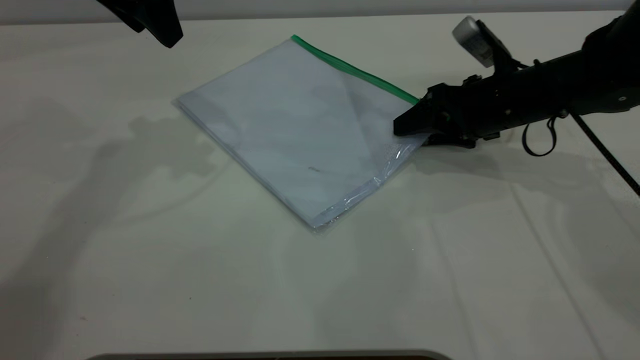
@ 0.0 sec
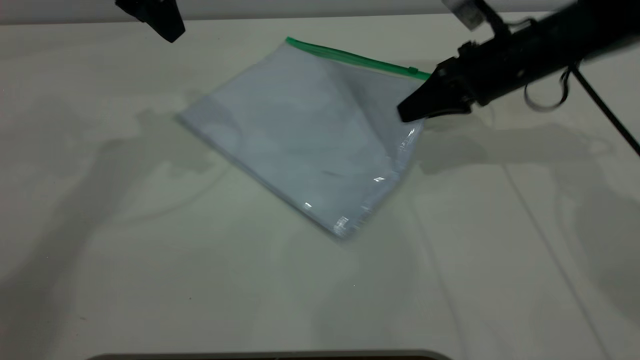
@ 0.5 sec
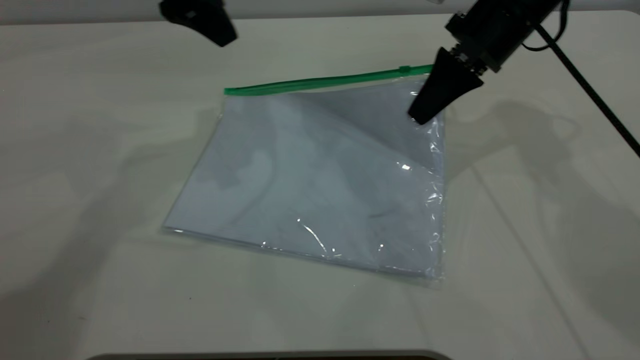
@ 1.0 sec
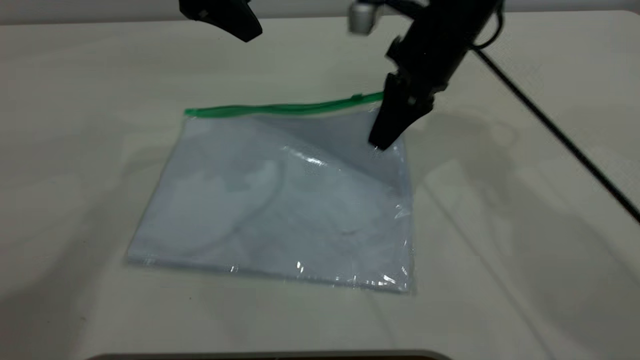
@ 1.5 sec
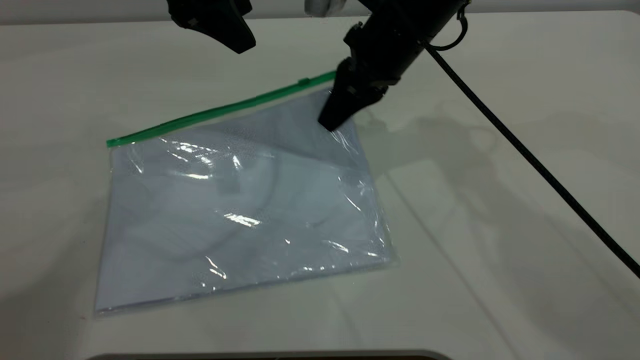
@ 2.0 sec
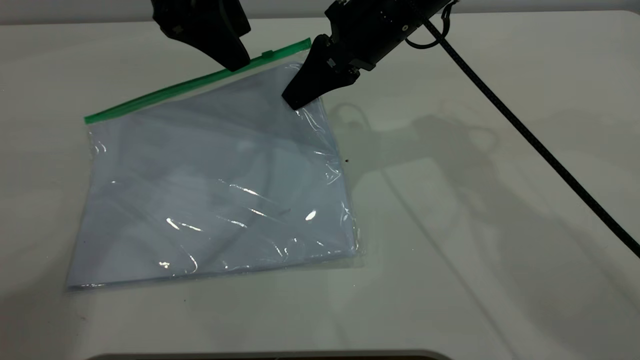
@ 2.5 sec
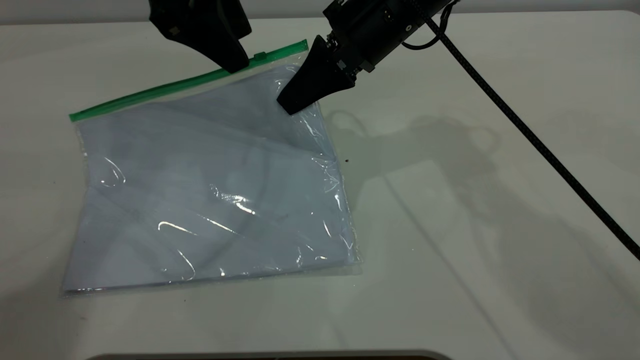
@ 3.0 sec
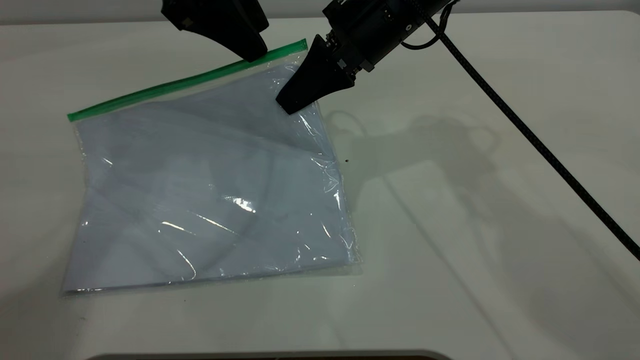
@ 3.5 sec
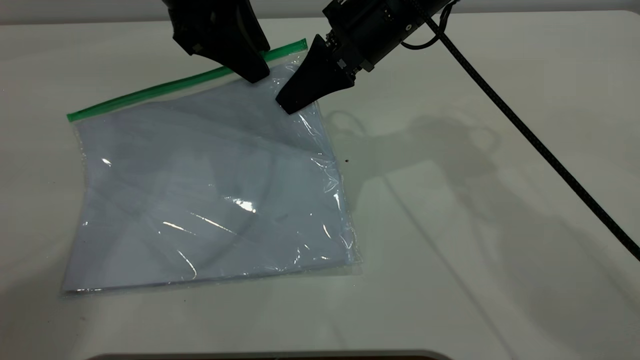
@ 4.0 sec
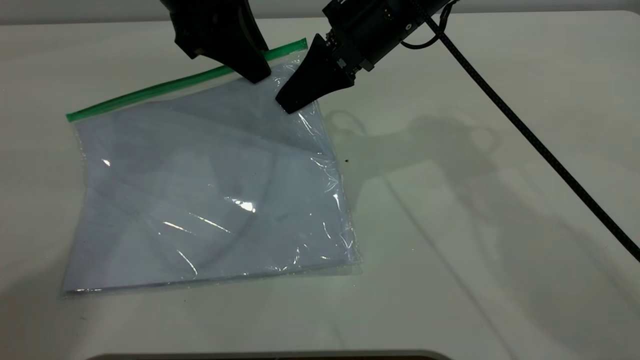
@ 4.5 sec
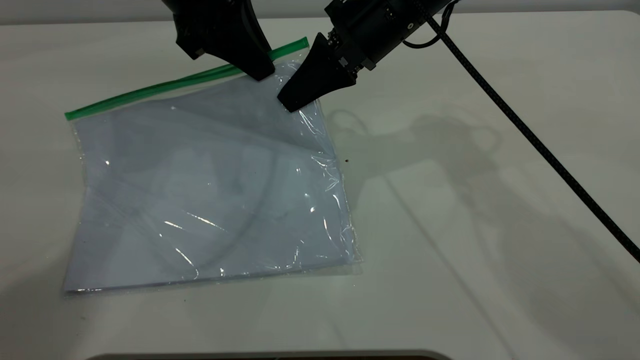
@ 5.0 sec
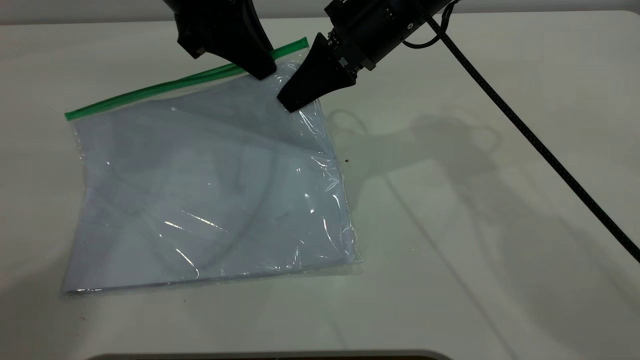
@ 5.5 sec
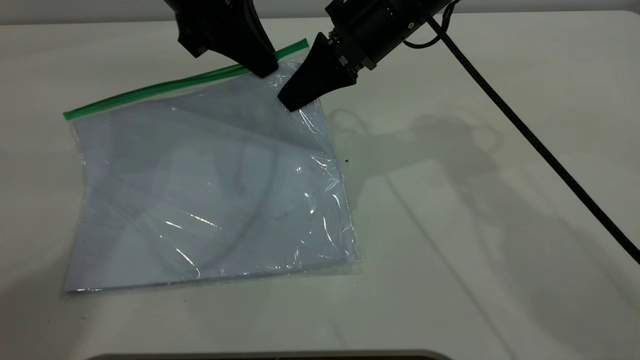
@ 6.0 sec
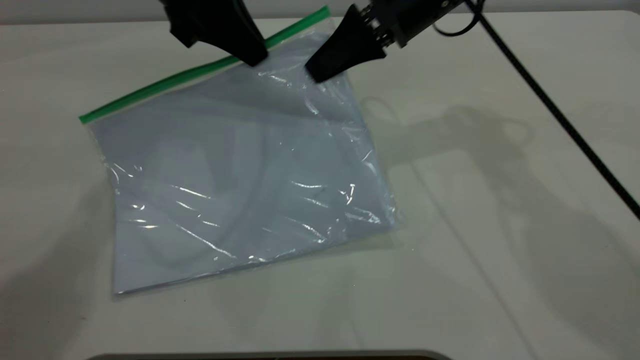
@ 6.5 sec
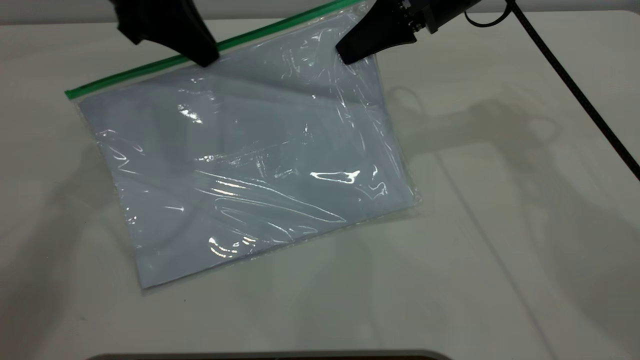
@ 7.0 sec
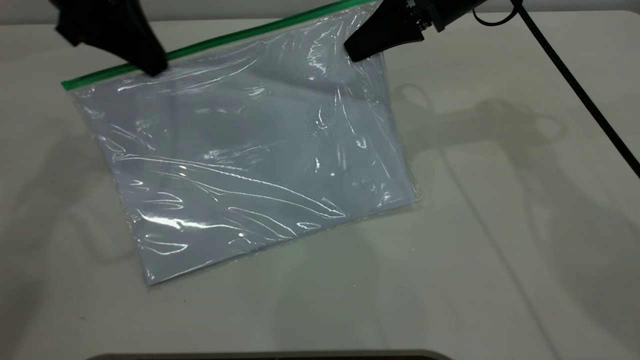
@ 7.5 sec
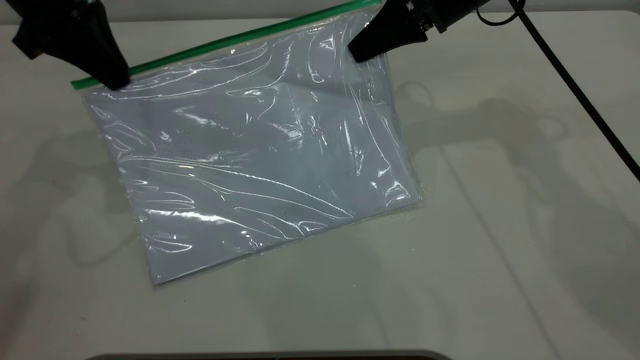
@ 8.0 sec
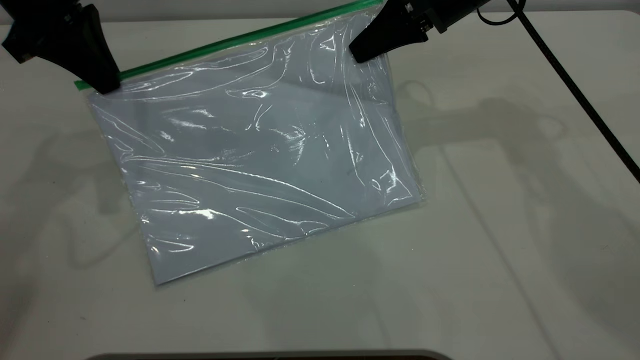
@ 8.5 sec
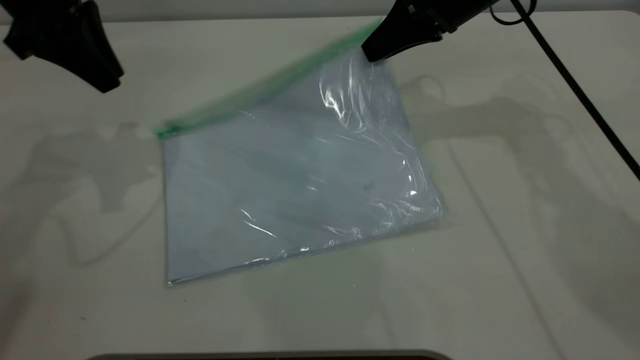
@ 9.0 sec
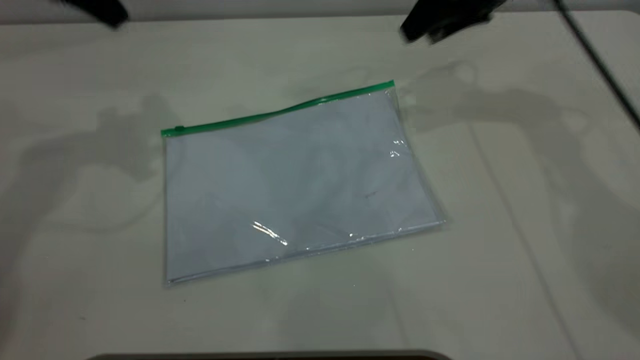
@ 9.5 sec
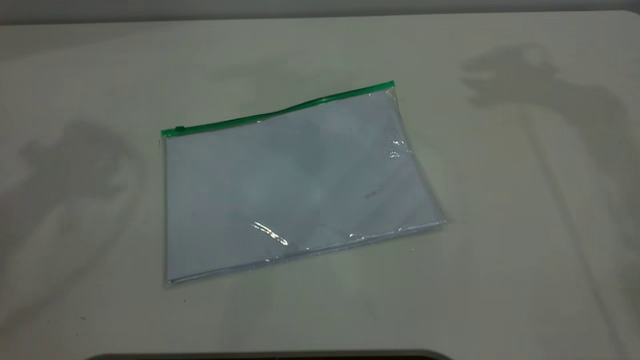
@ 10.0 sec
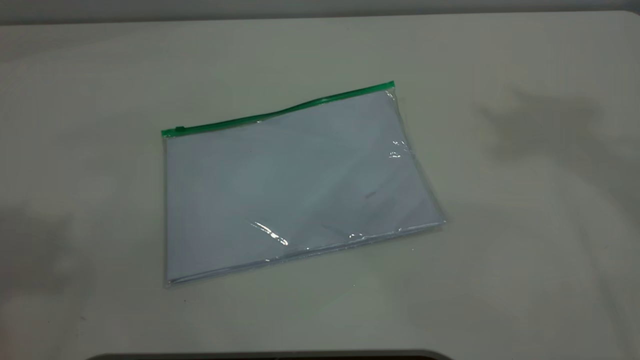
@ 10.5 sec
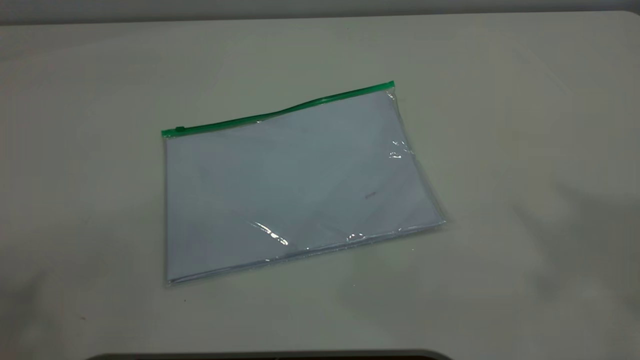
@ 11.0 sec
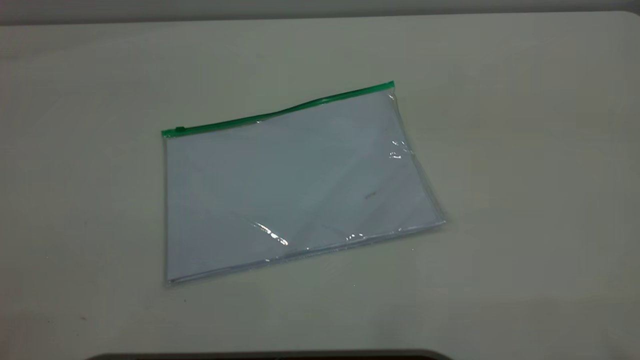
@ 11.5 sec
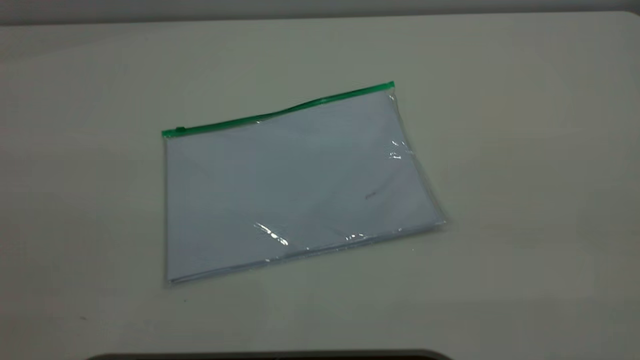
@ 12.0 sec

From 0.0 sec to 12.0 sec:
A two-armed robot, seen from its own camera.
Step, from 0.5 sec to 8.5 sec: Pulling up the zipper on the transparent plastic bag with the left gripper to close it.
From 0.0 sec to 2.0 sec: The left gripper travels to the right by some 5 cm, while the right gripper heads to the left and upward, covering about 15 cm, and closes.
From 2.0 sec to 4.0 sec: There are only small adjustments of the grippers.
From 4.0 sec to 6.0 sec: The left gripper closes up.
From 6.0 sec to 8.0 sec: The right gripper shifts approximately 10 cm to the right. Meanwhile the left gripper moves to the left, approximately 15 cm.
From 8.0 sec to 10.0 sec: The left gripper moves upward, some 25 cm, and opens its fingers, while the right gripper is displaced upward and to the right by about 30 cm, and opens up.

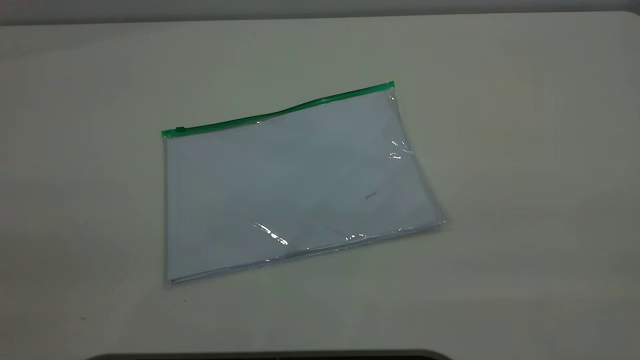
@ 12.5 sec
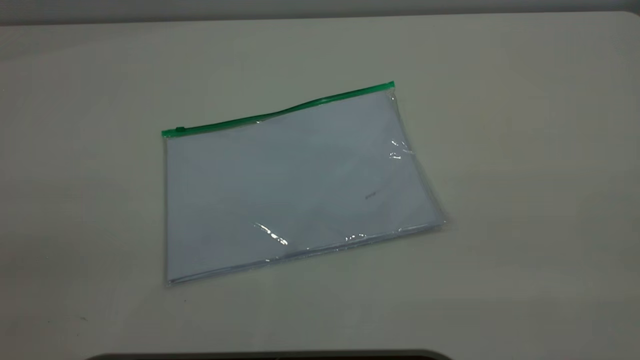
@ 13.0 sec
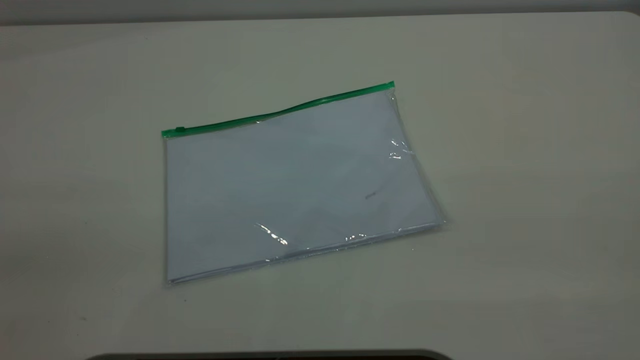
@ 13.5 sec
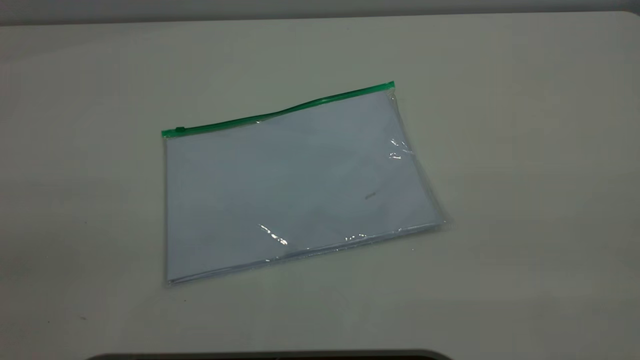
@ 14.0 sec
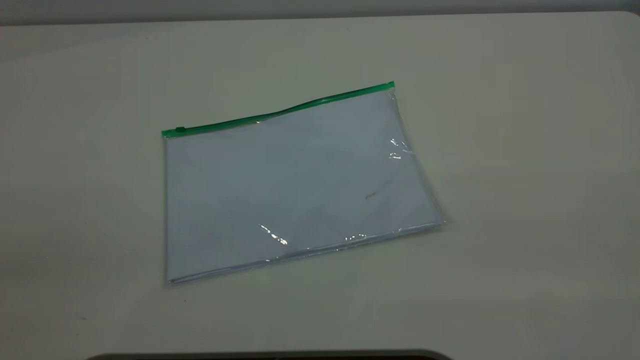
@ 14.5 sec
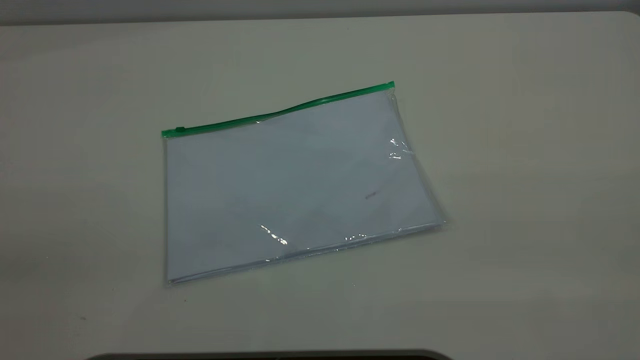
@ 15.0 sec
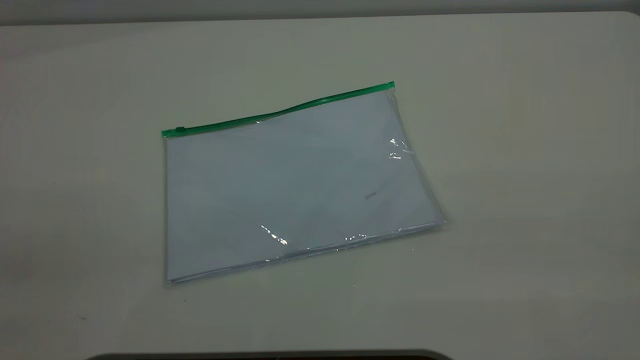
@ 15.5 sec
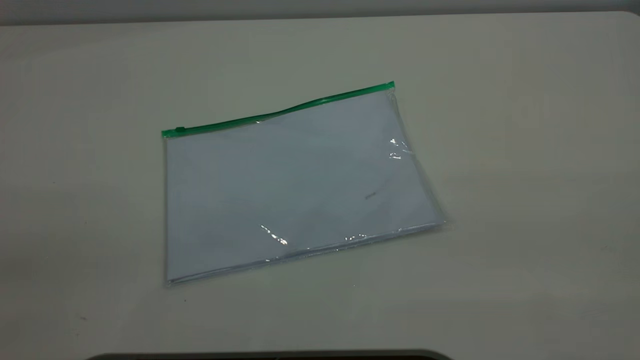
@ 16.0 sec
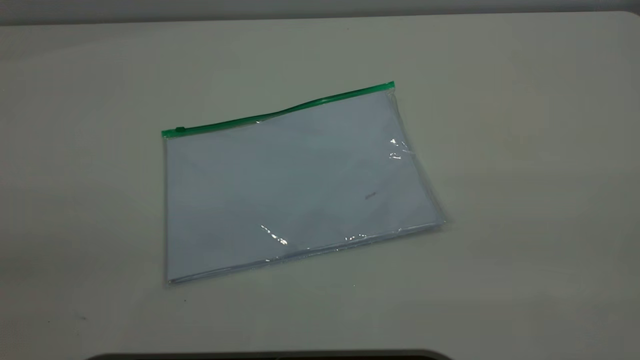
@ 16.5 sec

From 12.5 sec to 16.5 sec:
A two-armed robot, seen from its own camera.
From 14.5 sec to 16.5 sec: The two grippers keep their place.

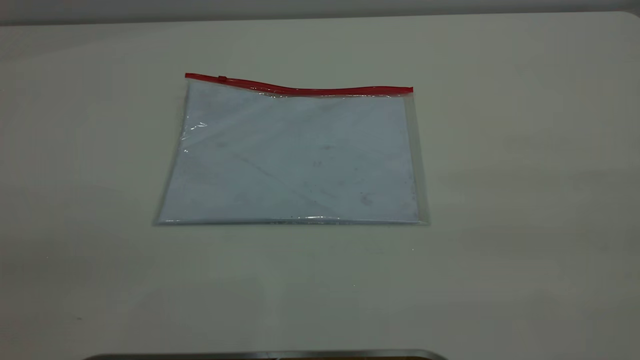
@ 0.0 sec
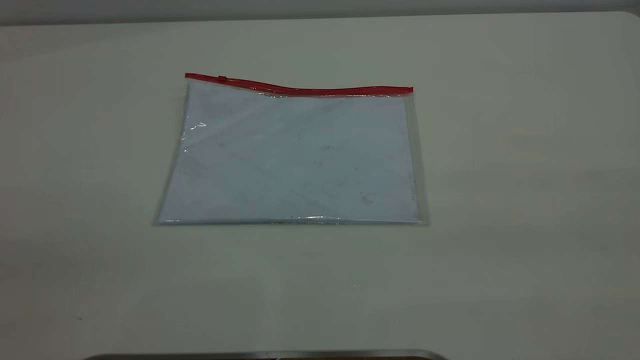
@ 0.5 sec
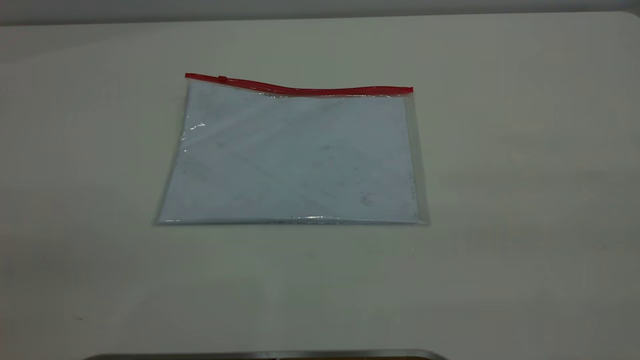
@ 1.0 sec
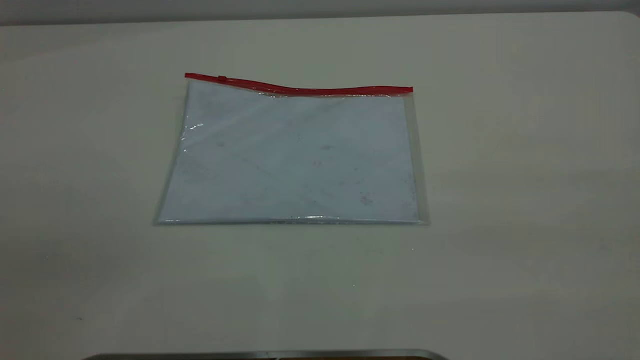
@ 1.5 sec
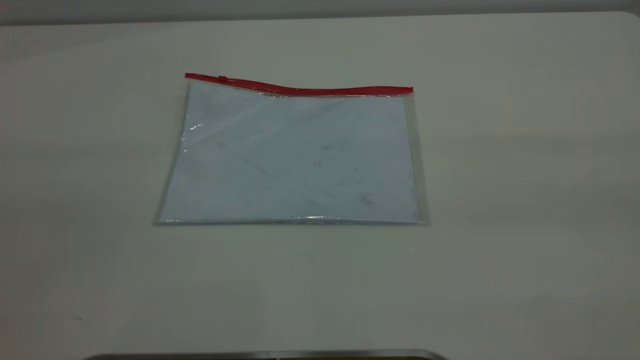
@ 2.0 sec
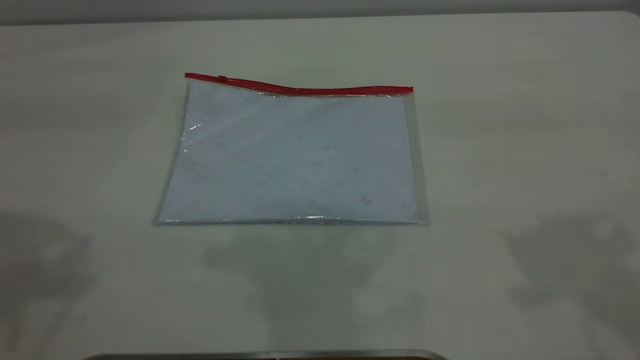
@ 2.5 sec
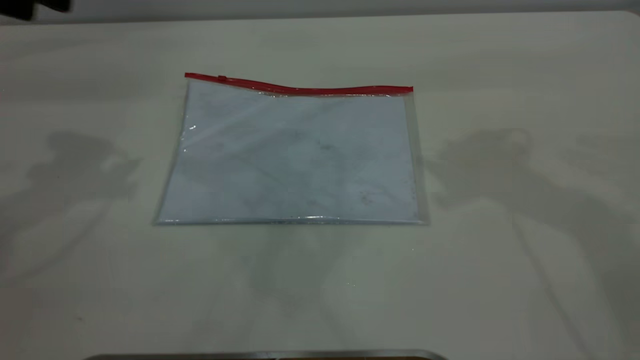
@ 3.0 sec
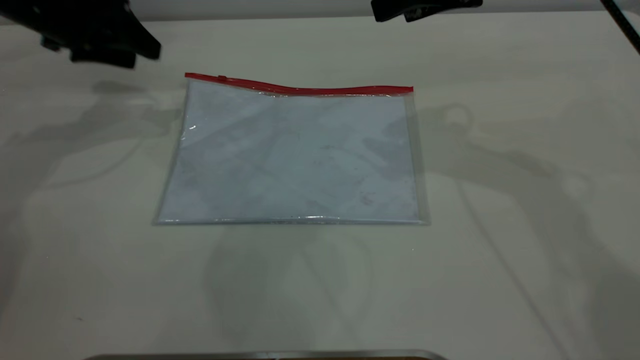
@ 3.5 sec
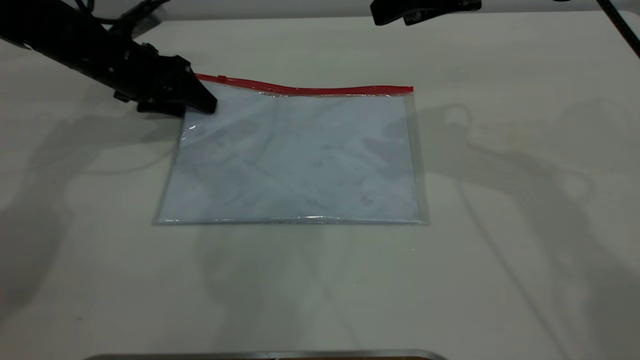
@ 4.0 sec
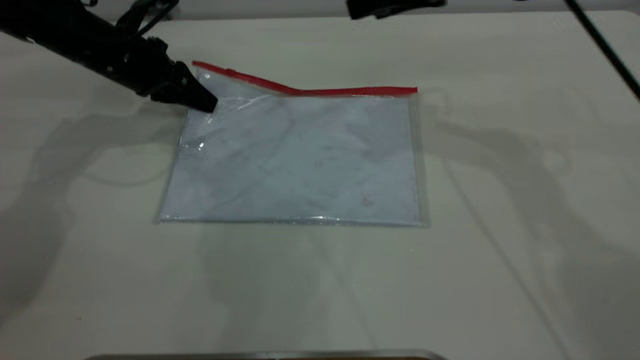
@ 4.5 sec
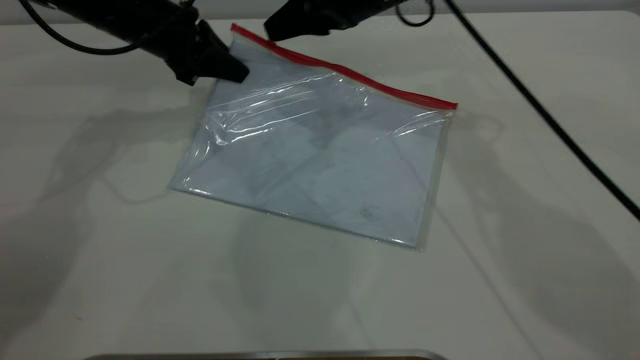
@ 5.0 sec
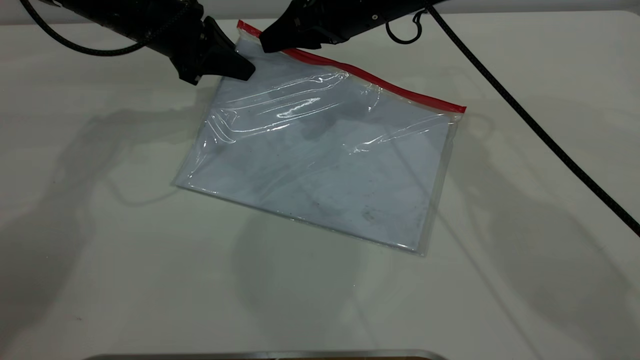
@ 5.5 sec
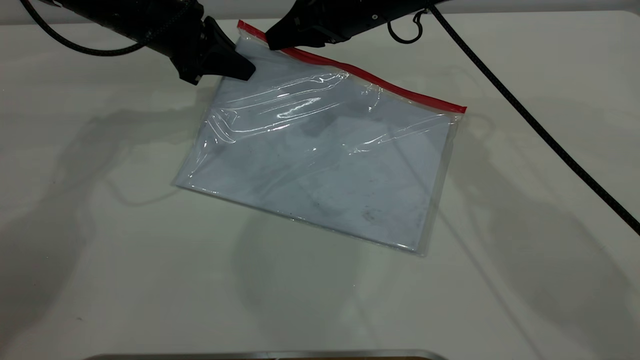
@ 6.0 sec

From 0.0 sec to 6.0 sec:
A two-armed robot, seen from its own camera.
Step, from 0.0 sec to 4.5 sec: Pick up the transparent plastic bag with the left gripper.
From 2.0 sec to 4.0 sec: Both grippers travel together forward and downward, about 40 cm.
From 4.0 sec to 6.0 sec: The left gripper heads to the right and upward, covering about 10 cm, and closes up. The right gripper is displaced to the left, downward and forward by some 15 cm, and closes up.
